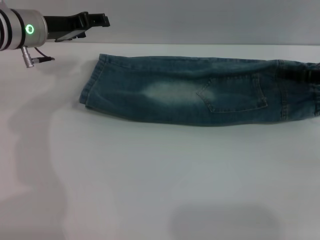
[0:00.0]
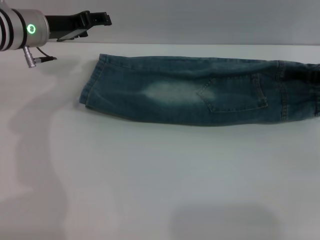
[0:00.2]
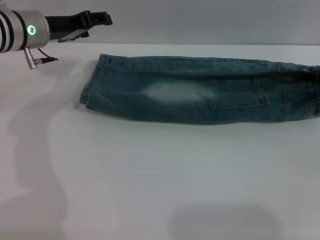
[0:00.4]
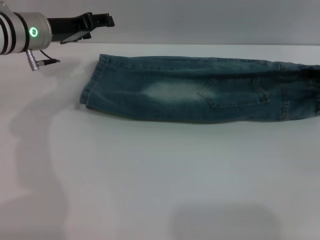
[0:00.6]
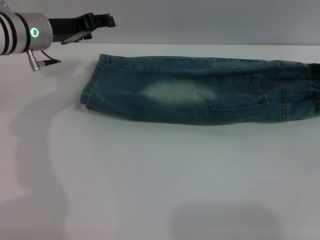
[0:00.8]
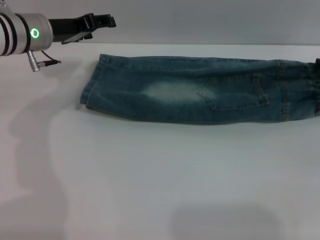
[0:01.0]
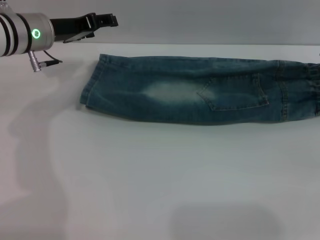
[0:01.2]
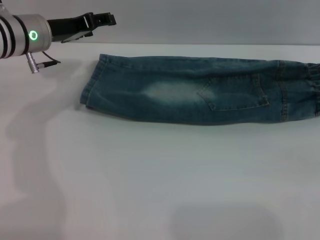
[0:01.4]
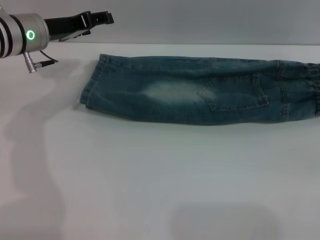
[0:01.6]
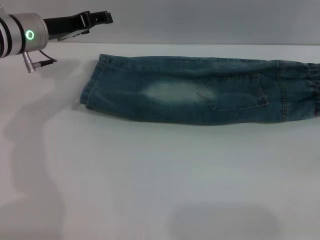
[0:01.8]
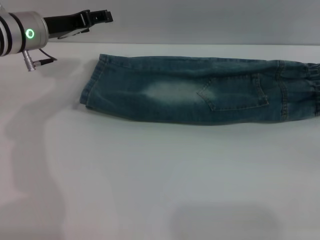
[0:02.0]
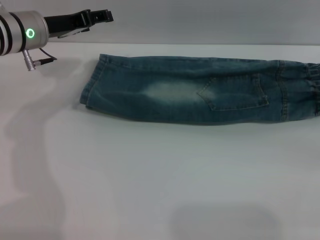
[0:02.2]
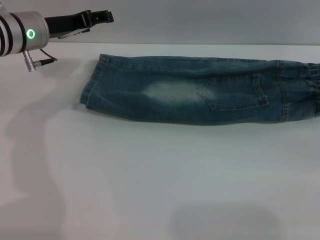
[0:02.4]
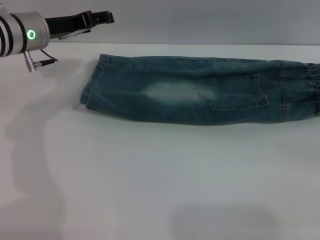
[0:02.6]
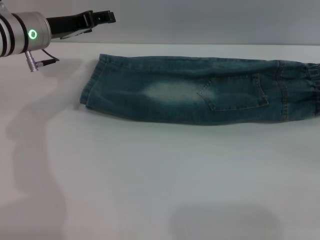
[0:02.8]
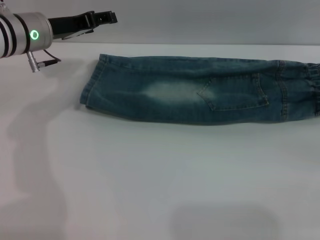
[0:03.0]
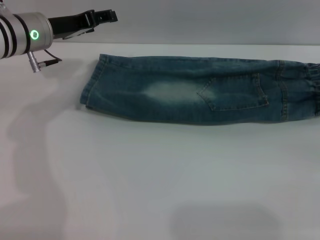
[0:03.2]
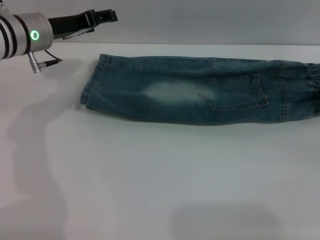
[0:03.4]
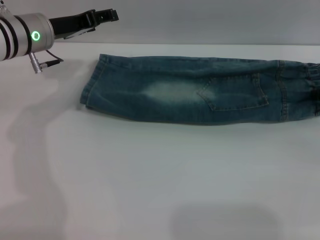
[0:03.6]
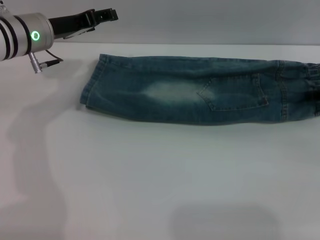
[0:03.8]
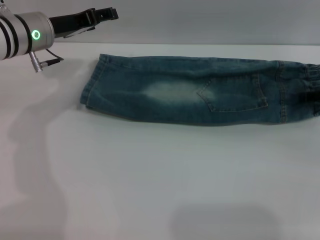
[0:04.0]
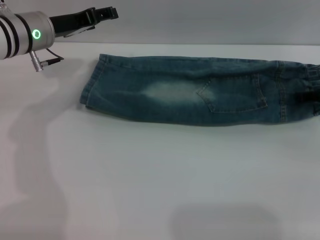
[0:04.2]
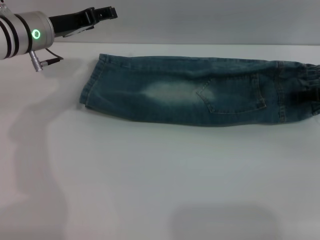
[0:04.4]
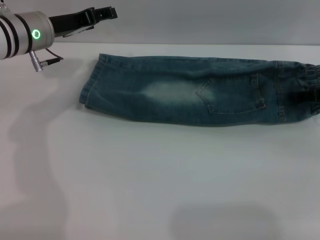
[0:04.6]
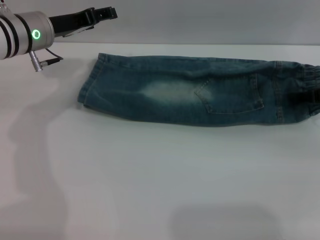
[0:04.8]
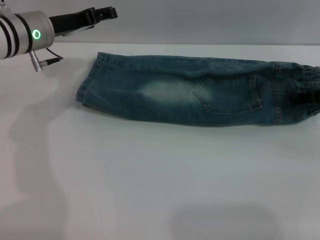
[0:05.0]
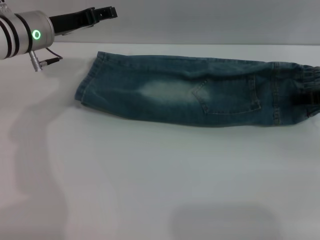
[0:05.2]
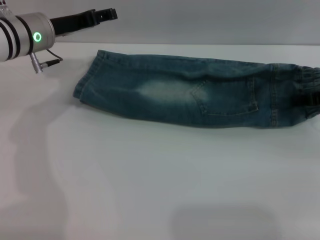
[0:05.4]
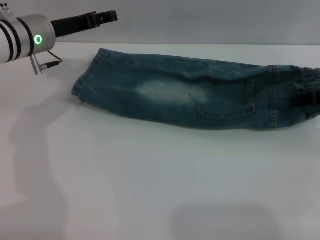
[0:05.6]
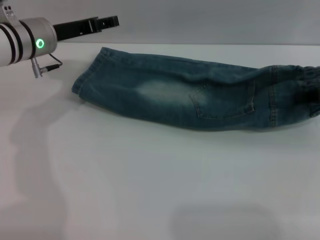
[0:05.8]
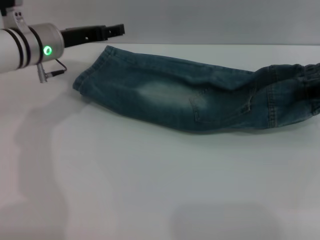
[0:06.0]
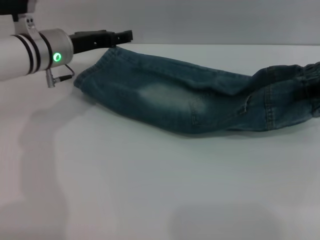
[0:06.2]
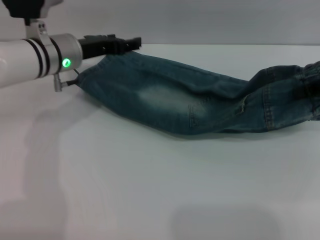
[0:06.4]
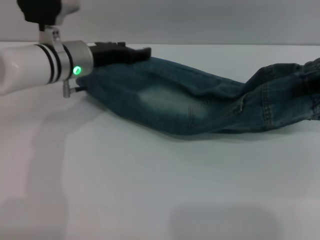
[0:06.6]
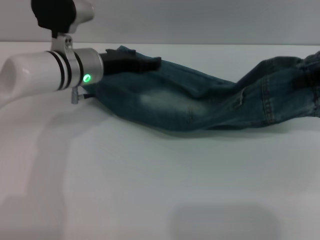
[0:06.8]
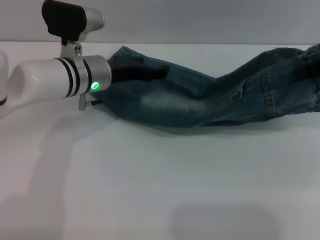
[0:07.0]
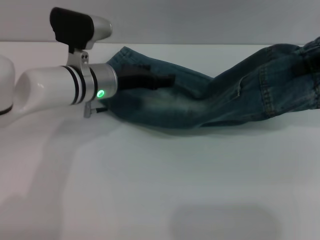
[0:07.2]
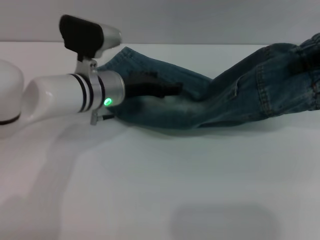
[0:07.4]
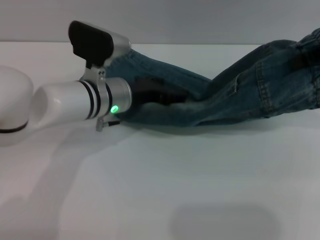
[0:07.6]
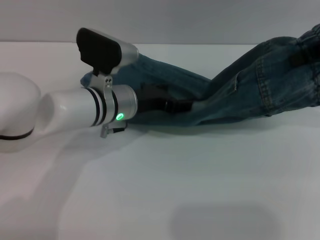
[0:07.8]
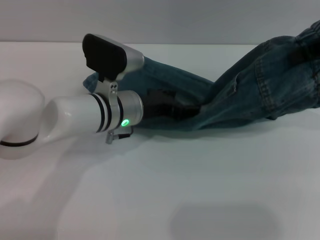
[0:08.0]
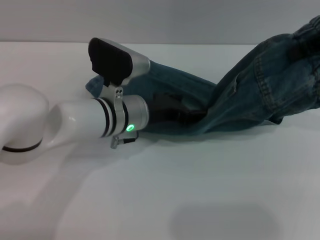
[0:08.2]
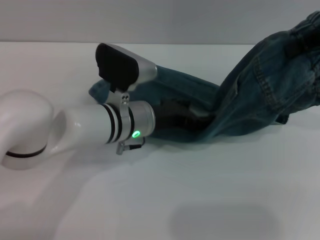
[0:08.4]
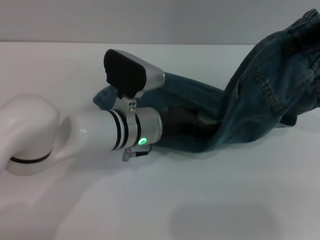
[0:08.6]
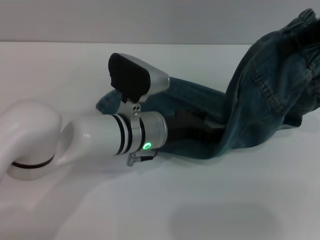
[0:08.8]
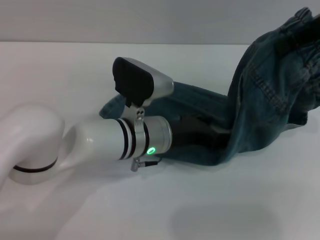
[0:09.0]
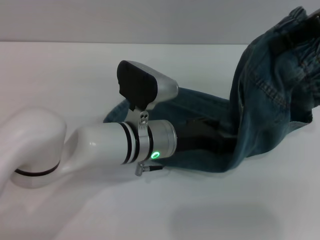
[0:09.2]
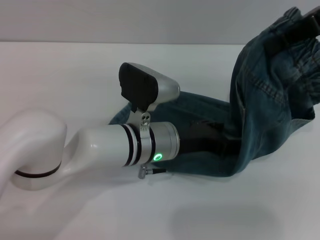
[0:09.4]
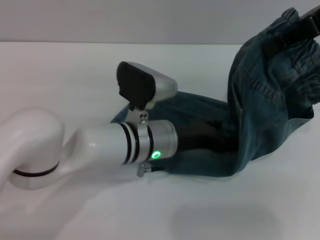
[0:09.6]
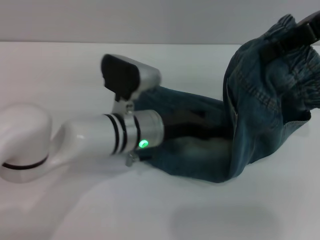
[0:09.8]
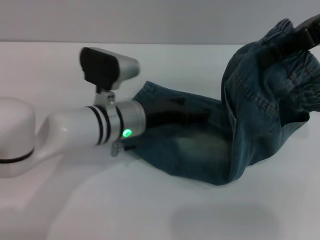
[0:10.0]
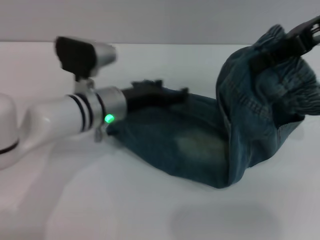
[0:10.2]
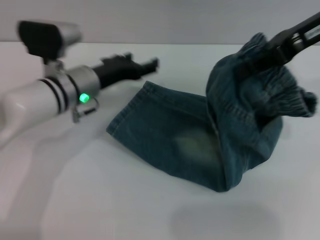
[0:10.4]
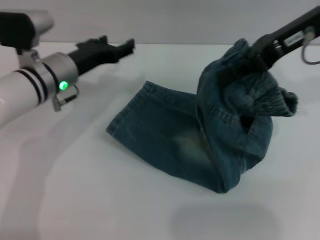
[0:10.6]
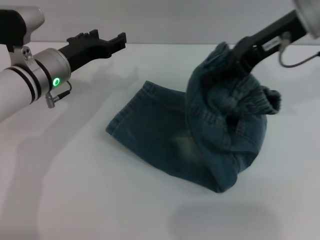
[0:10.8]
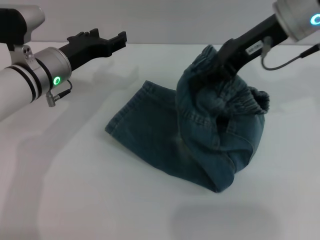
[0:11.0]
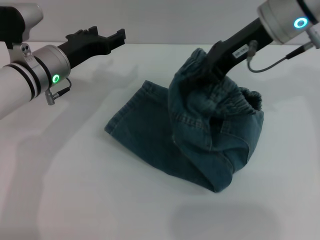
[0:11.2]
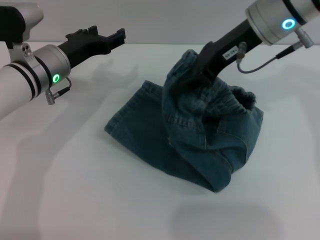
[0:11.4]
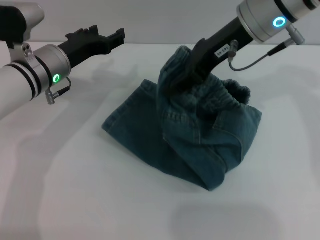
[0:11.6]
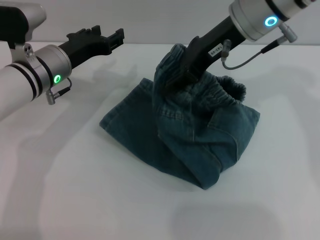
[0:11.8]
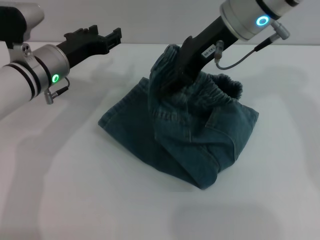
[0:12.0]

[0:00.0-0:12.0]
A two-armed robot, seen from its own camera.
0:00.0 to 0:01.6: The right gripper travels to the right by some 5 cm.
0:01.6 to 0:03.0: The grippers move only a little.
0:03.0 to 0:04.4: The right gripper heads to the left, covering roughly 5 cm.
0:04.4 to 0:06.0: The right gripper heads upward, covering approximately 5 cm, and closes.
0:06.0 to 0:07.6: The right gripper goes approximately 10 cm upward. Meanwhile the left gripper travels to the right, backward and downward by about 10 cm.
0:07.6 to 0:09.0: The left gripper is displaced backward and to the right by roughly 10 cm.
0:09.0 to 0:10.4: The right gripper shifts by about 5 cm, while the left gripper is displaced to the left and forward by some 10 cm.
0:10.4 to 0:12.0: The right gripper travels to the left by approximately 15 cm, and opens.

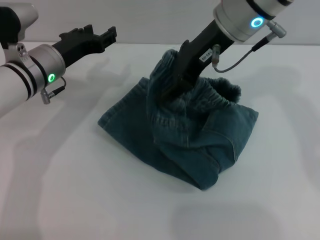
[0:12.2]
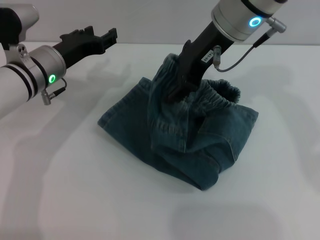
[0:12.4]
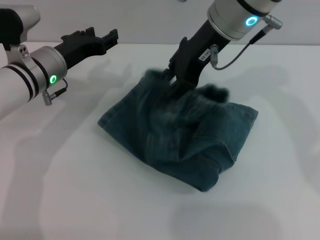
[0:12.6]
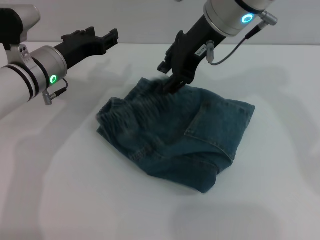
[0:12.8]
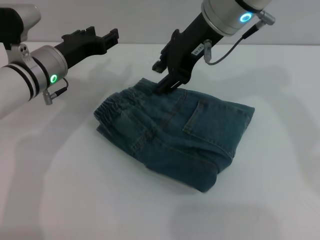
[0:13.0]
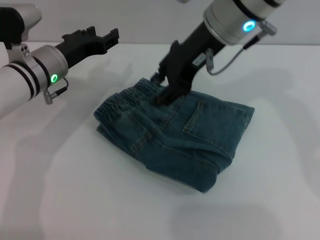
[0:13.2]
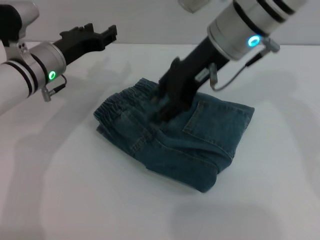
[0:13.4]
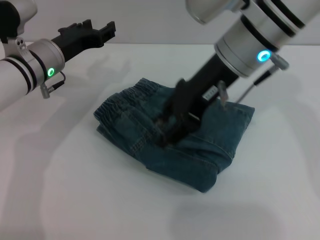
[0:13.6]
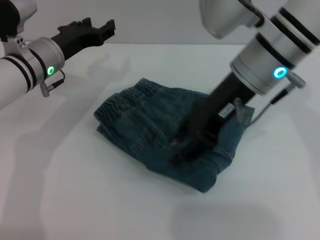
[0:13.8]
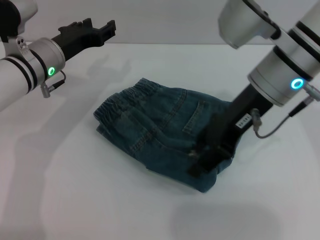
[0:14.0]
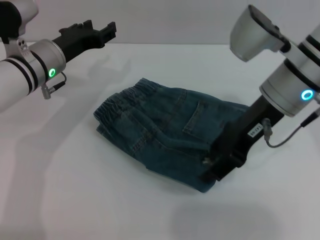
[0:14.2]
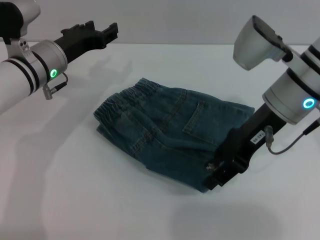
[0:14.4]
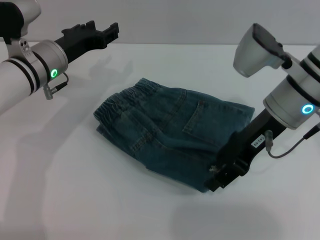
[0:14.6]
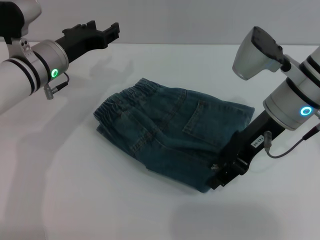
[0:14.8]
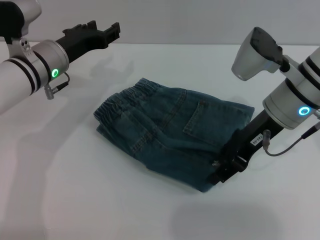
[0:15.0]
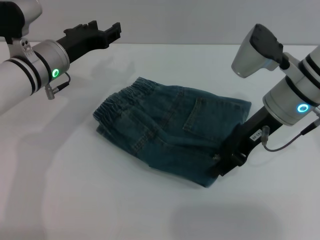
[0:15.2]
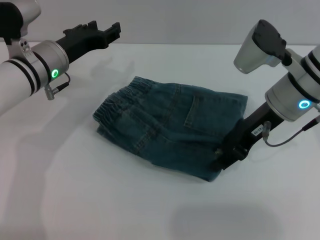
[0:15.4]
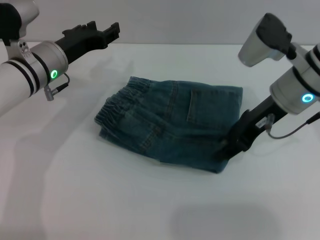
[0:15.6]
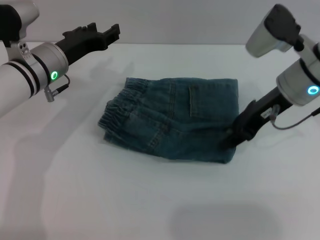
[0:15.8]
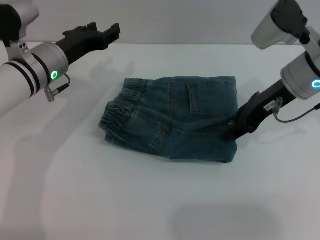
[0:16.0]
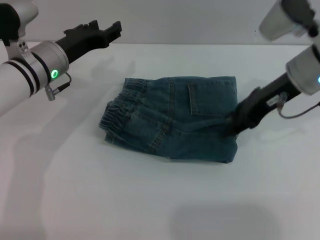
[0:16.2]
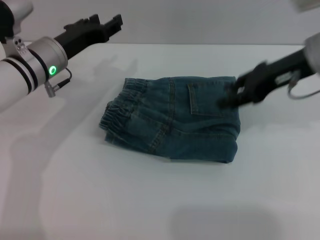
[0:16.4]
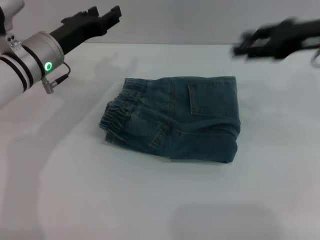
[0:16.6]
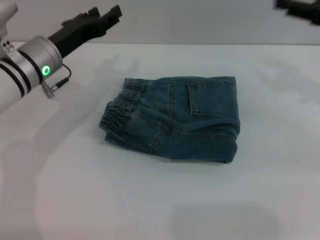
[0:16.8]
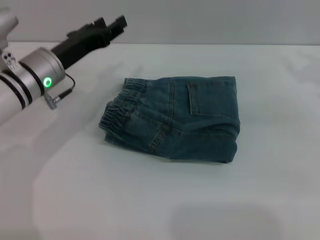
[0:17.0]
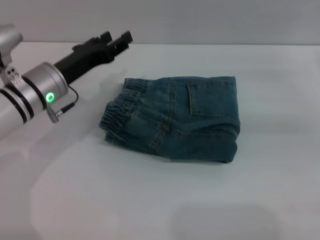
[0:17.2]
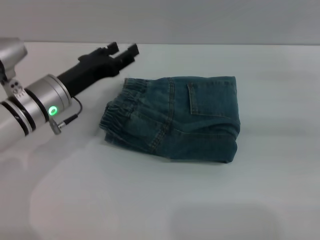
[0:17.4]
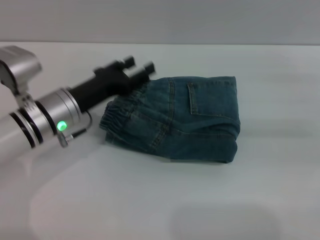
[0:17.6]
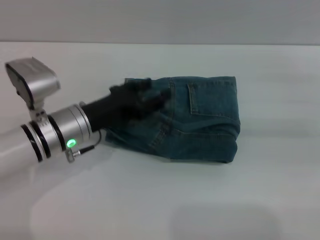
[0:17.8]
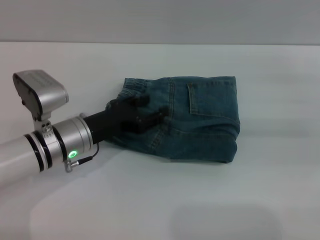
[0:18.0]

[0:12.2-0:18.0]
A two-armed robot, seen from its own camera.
Step, 0:13.4 to 0:16.2: Place the folded trousers onto the center area with the right grippers.
0:12.2 to 0:13.6: There are only small adjustments of the grippers.
0:13.6 to 0:15.0: The right gripper is displaced downward and to the right by about 10 cm.
0:15.0 to 0:16.6: The right gripper goes approximately 10 cm to the right and upward.
0:16.6 to 0:18.0: The left gripper is displaced backward and downward by approximately 10 cm, while the right gripper shifts about 15 cm to the right and downward.

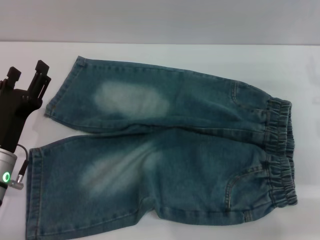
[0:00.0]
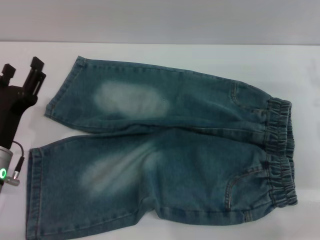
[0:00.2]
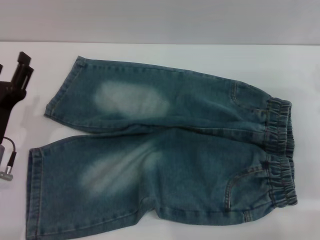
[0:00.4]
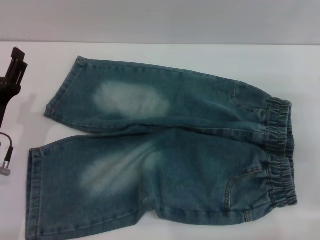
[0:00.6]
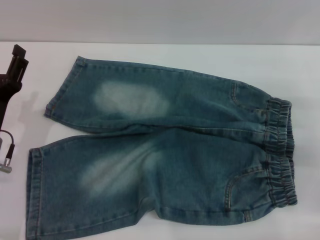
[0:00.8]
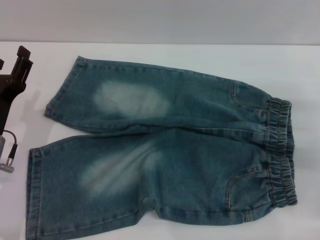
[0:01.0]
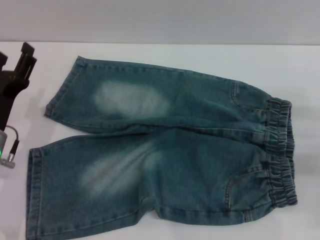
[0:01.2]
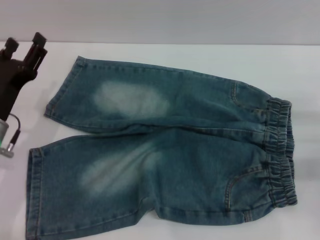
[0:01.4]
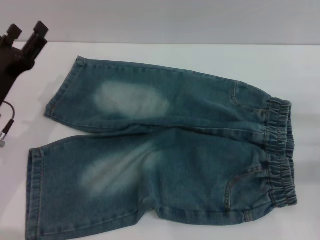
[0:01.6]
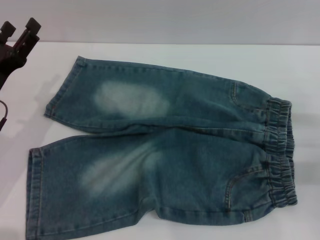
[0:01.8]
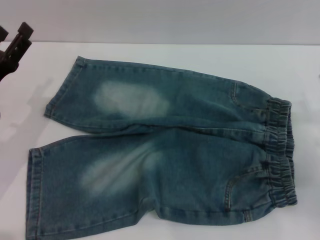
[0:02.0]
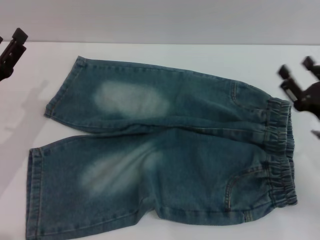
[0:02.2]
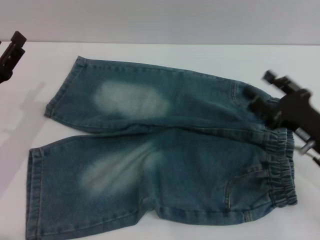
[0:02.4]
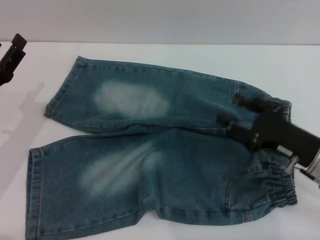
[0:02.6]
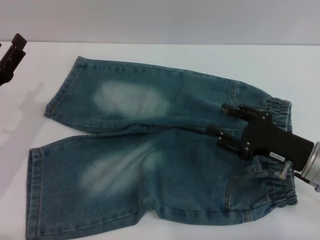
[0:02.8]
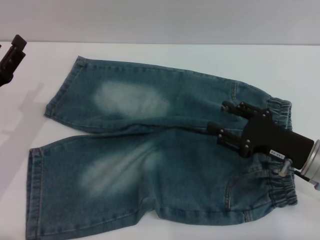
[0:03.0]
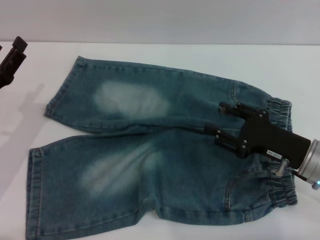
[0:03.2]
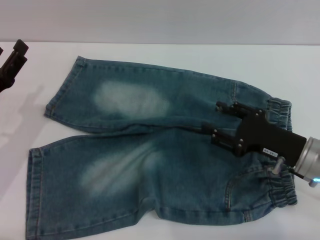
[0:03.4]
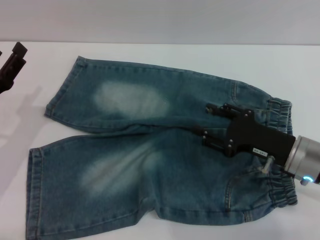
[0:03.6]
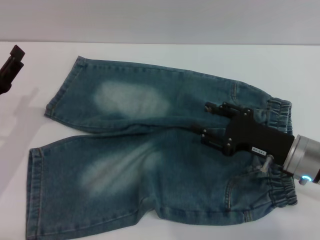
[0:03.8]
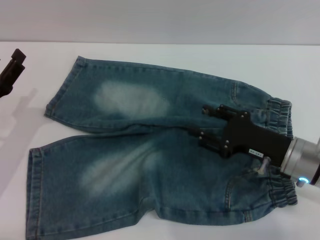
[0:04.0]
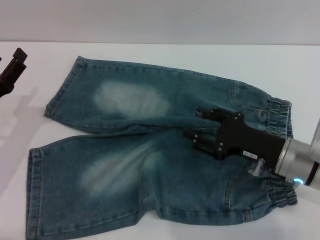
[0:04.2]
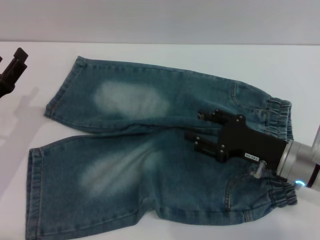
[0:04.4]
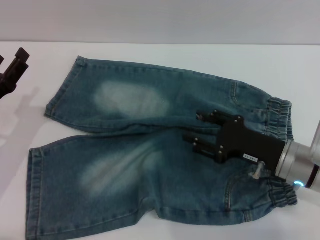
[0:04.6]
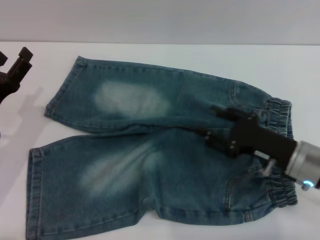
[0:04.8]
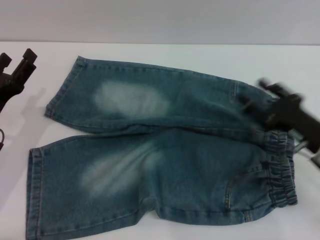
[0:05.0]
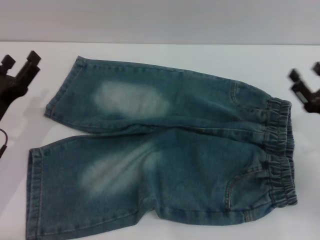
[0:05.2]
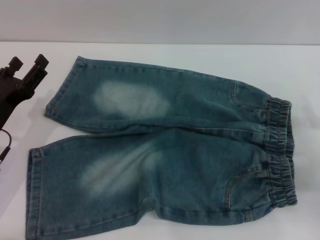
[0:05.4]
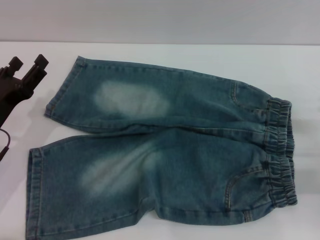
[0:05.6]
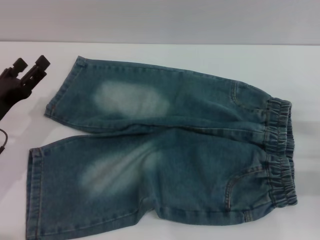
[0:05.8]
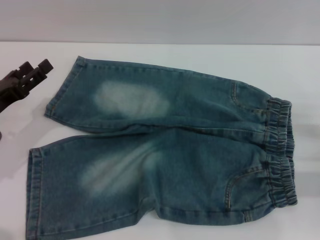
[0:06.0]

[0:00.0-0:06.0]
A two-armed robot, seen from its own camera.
0:00.0 to 0:01.6: The right gripper is displaced backward by roughly 5 cm, while the left gripper is displaced forward by approximately 5 cm.
0:01.6 to 0:03.0: The right gripper goes about 10 cm to the left.
0:03.0 to 0:04.4: The grippers move only a little.
0:04.4 to 0:06.0: The right gripper heads to the right, covering about 15 cm.
